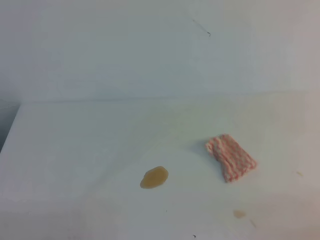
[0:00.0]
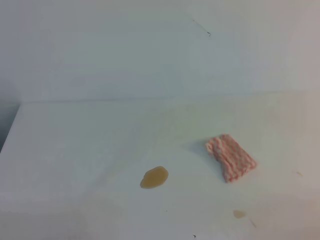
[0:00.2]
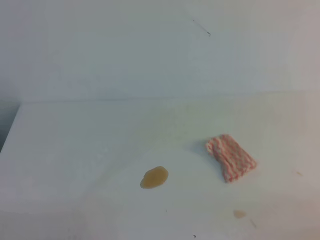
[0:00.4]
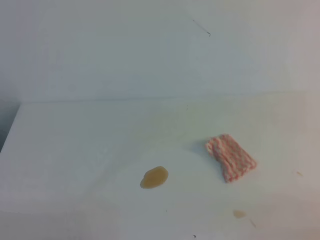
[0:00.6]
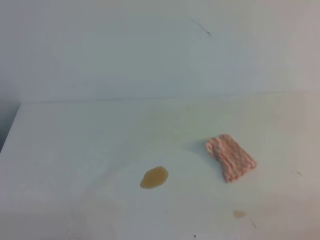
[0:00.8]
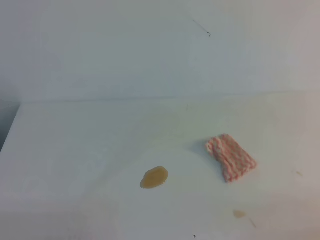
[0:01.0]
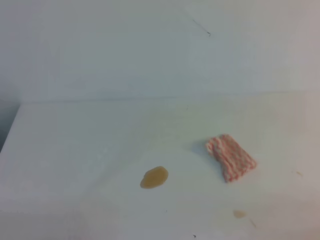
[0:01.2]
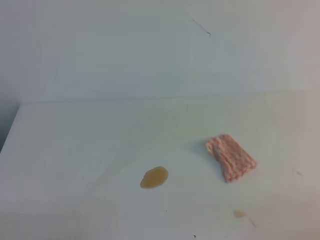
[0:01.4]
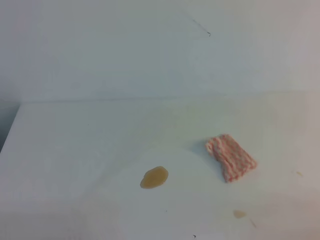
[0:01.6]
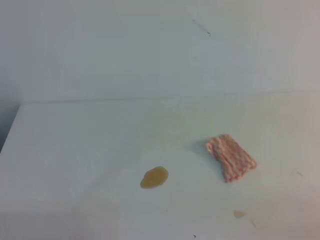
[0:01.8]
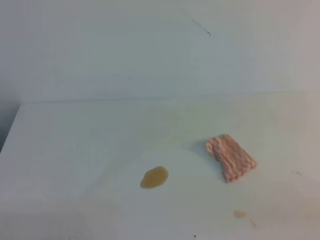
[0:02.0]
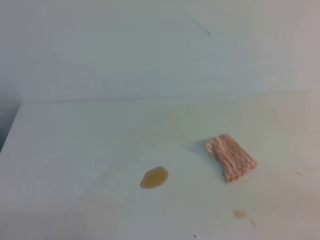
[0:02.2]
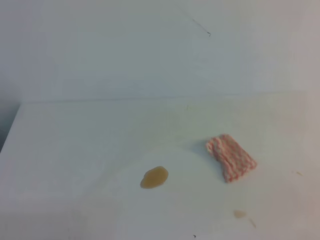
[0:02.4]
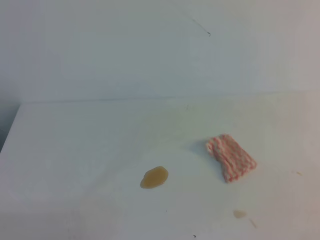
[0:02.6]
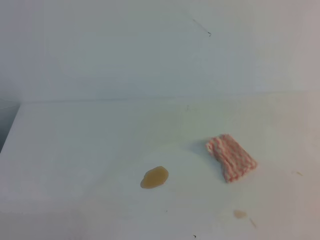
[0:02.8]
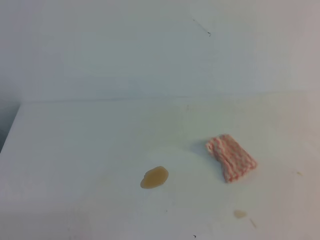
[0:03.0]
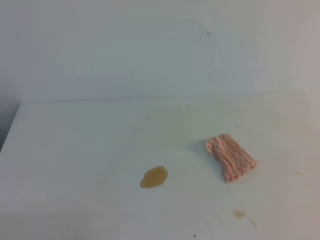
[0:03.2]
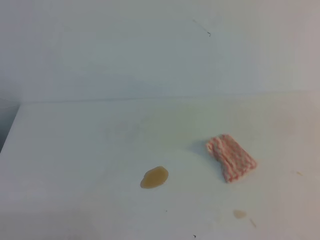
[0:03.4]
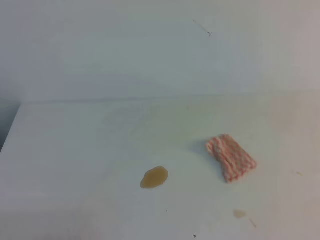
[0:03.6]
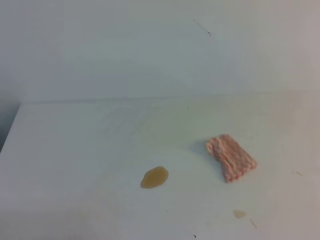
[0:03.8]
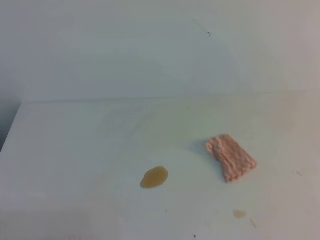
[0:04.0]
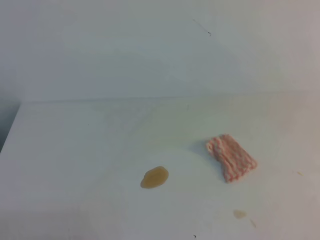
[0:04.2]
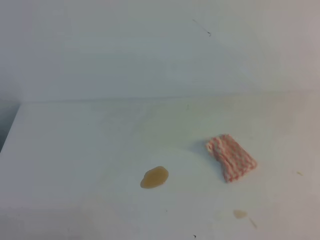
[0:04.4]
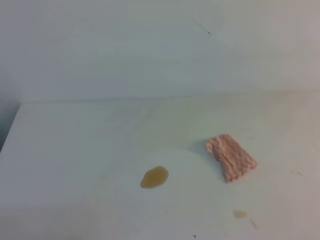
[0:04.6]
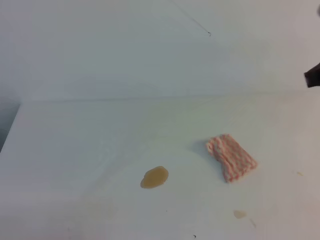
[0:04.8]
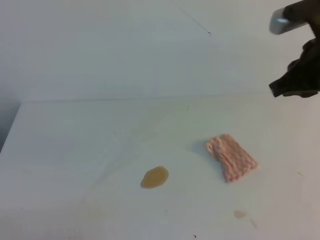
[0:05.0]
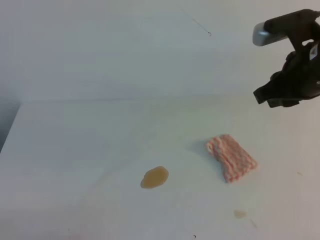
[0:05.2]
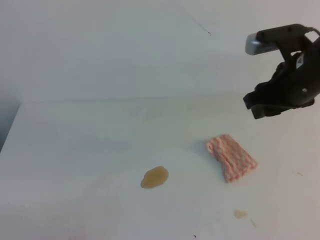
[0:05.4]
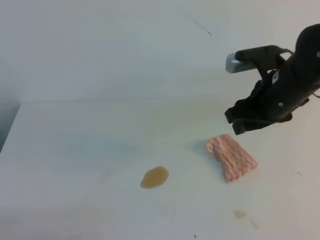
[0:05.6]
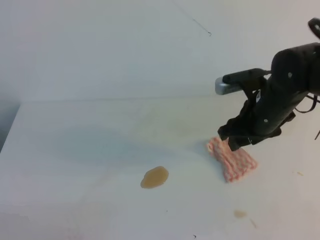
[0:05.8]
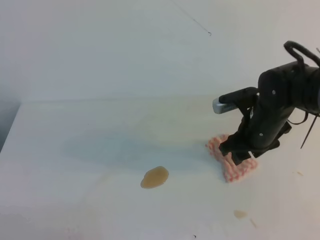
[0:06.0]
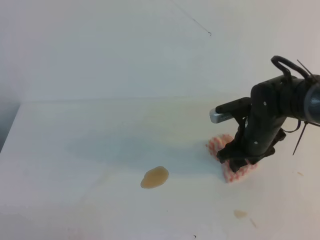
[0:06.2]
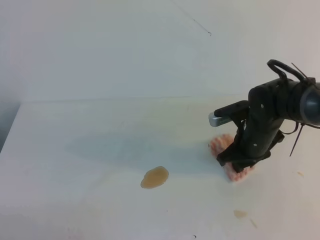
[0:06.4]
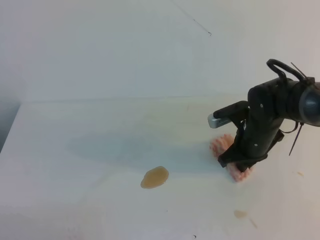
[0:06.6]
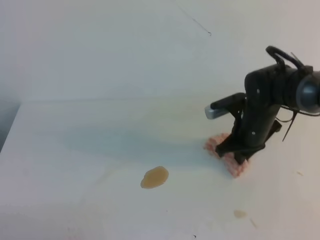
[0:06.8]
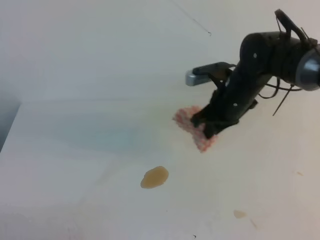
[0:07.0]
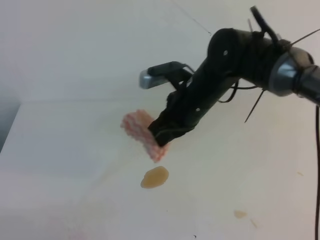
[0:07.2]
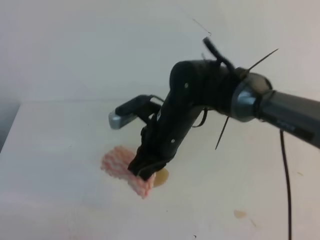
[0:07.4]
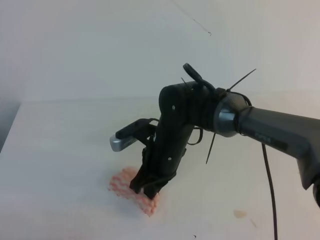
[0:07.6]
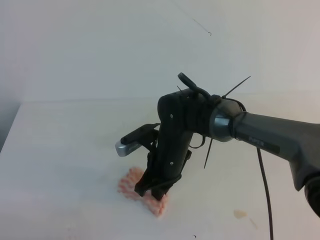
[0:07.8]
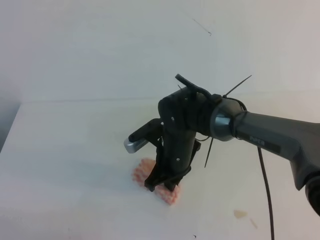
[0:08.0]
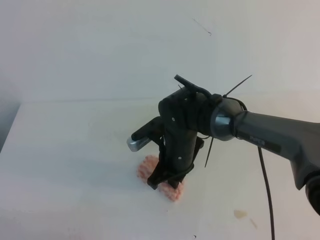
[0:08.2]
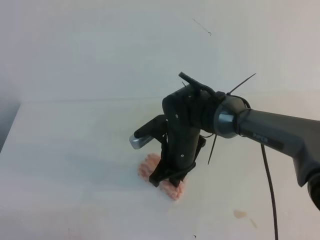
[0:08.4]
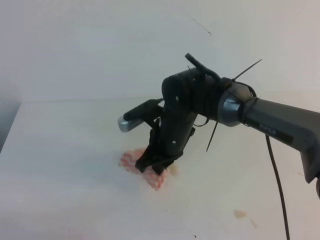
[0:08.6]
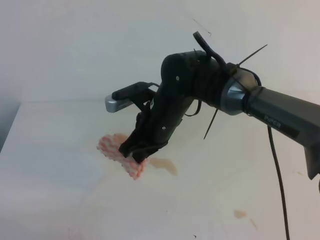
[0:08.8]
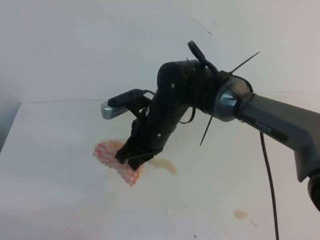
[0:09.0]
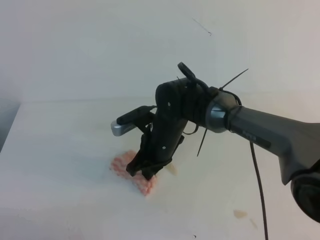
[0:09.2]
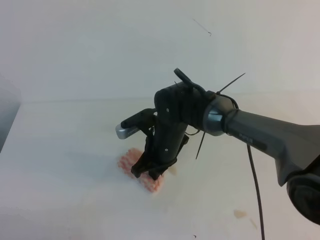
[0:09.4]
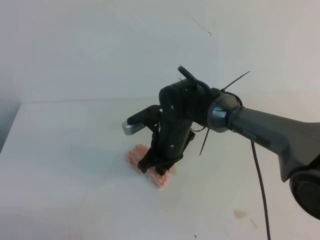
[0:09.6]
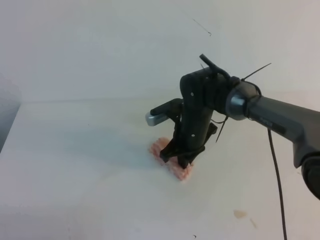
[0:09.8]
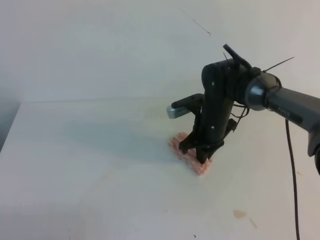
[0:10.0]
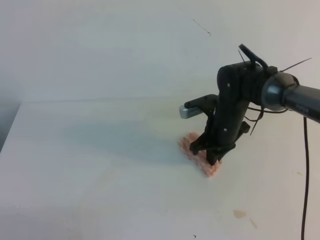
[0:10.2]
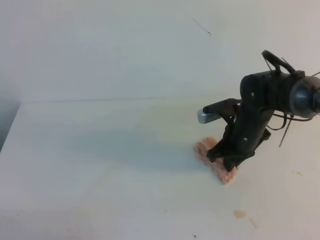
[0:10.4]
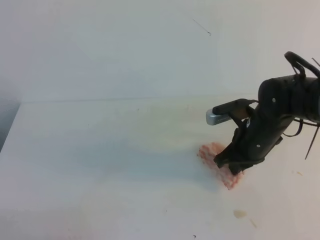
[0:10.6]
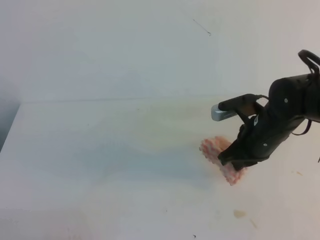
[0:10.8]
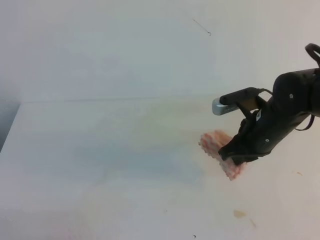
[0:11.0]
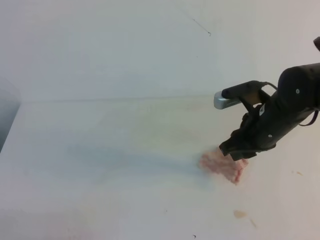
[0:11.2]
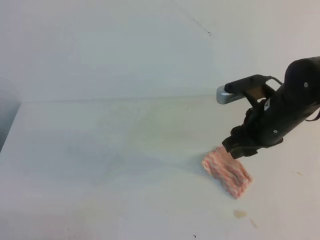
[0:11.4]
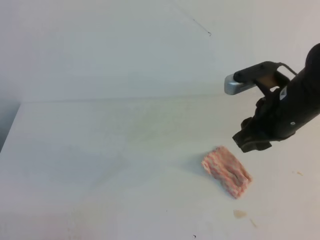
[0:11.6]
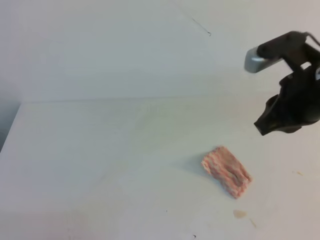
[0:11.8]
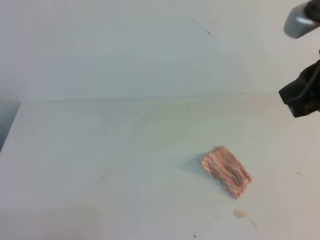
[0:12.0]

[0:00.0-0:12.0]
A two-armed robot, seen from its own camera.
0:00.0 to 0:01.6: The two grippers keep their place.
0:04.4 to 0:06.0: The right gripper travels downward, forward and to the left by approximately 30 cm, and opens up.
0:06.0 to 0:07.6: The right gripper heads to the left, covering approximately 15 cm, and closes its fingers.
0:07.6 to 0:09.0: There are only small adjustments of the grippers.
0:09.0 to 0:10.4: The right gripper goes roughly 15 cm to the right.
0:10.4 to 0:12.0: The right gripper shifts about 25 cm upward and backward, and opens, then closes once more.
